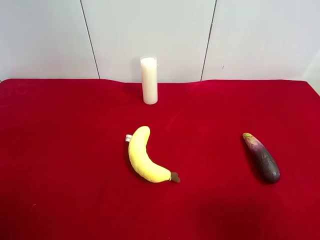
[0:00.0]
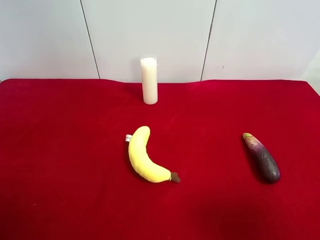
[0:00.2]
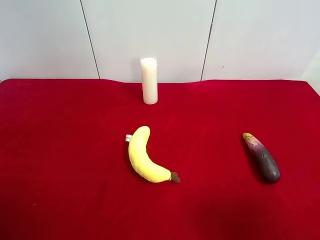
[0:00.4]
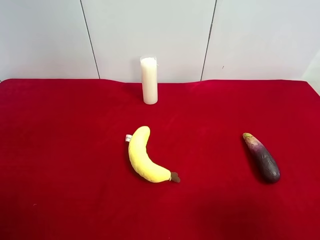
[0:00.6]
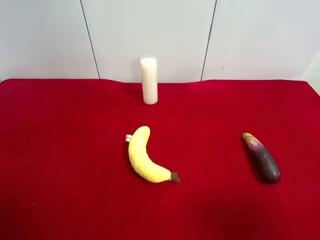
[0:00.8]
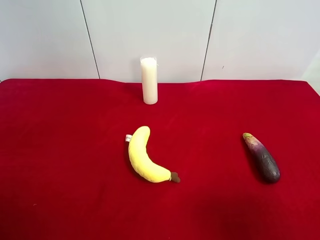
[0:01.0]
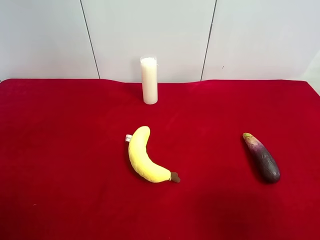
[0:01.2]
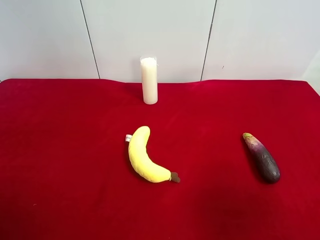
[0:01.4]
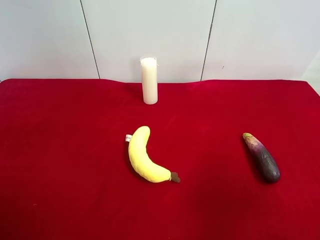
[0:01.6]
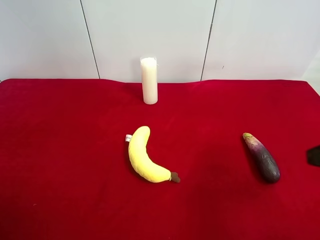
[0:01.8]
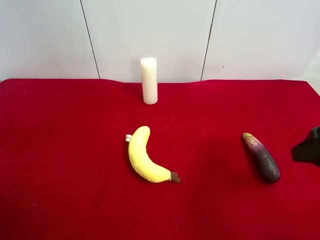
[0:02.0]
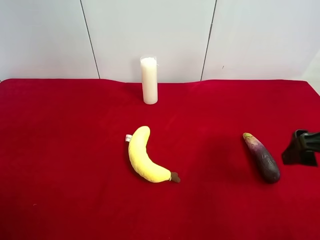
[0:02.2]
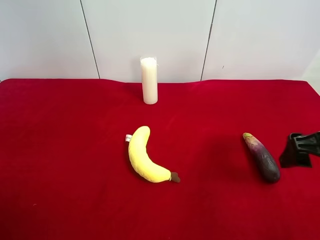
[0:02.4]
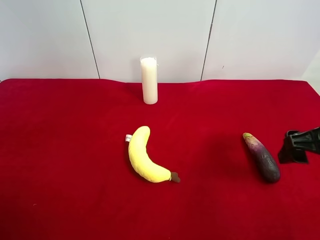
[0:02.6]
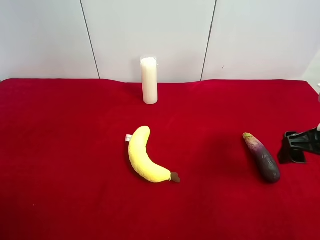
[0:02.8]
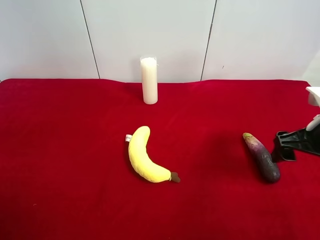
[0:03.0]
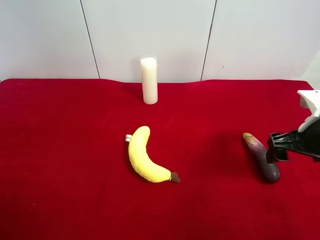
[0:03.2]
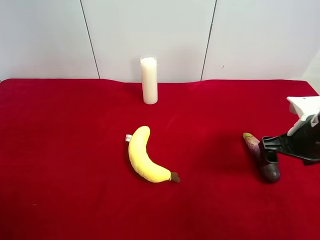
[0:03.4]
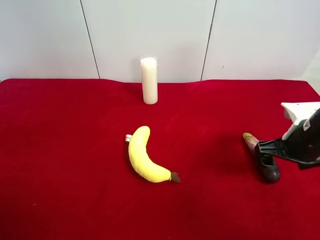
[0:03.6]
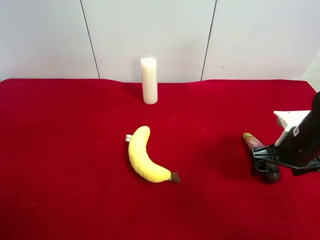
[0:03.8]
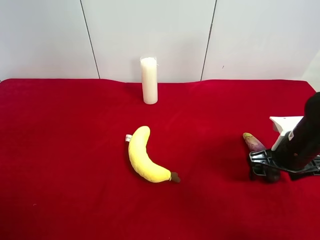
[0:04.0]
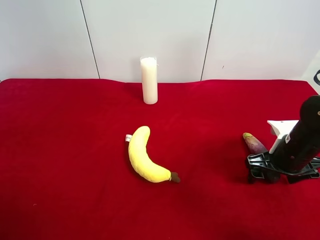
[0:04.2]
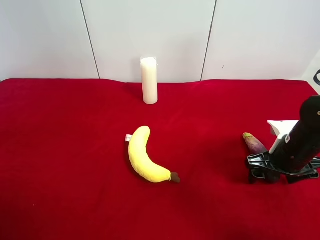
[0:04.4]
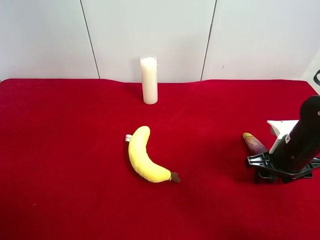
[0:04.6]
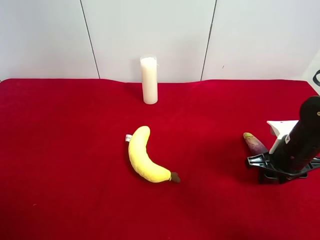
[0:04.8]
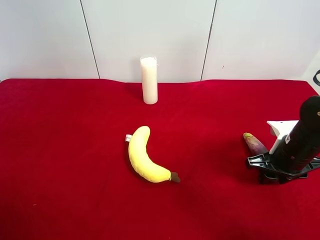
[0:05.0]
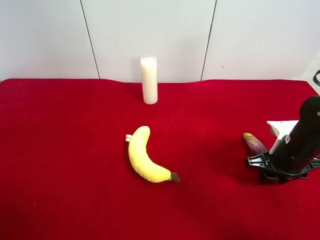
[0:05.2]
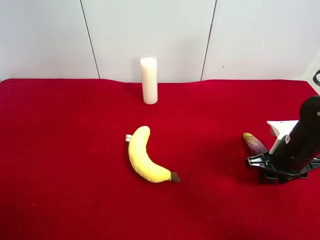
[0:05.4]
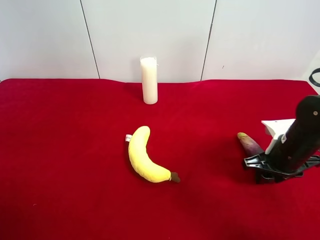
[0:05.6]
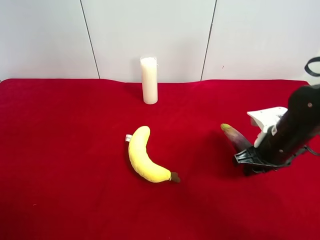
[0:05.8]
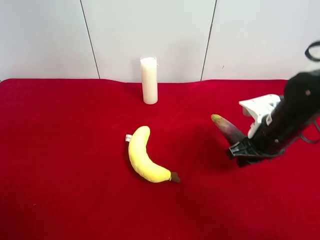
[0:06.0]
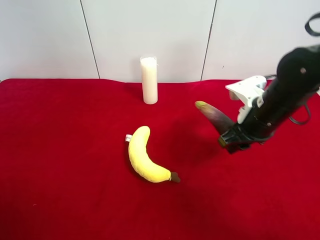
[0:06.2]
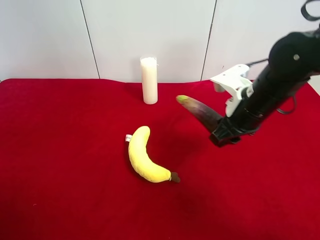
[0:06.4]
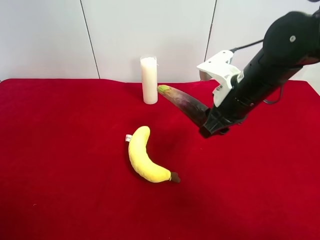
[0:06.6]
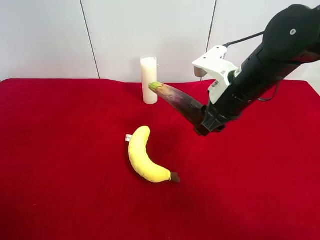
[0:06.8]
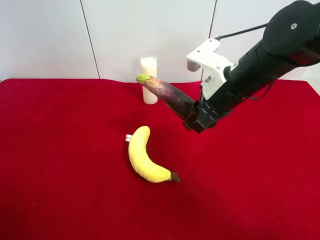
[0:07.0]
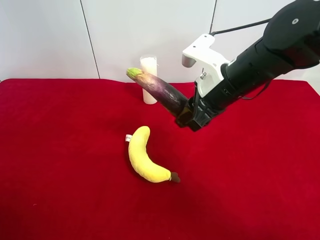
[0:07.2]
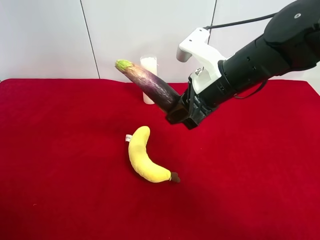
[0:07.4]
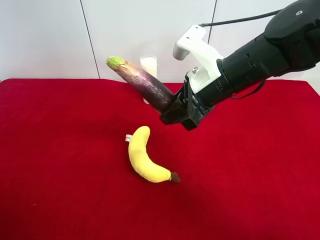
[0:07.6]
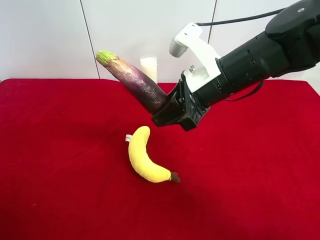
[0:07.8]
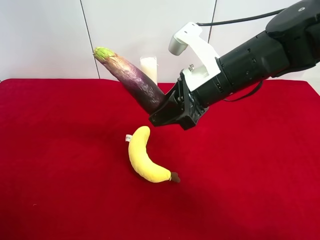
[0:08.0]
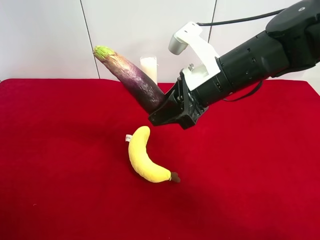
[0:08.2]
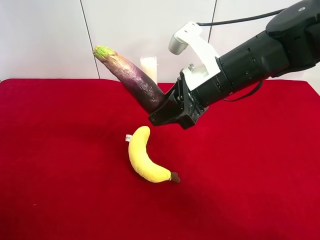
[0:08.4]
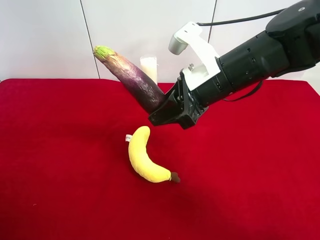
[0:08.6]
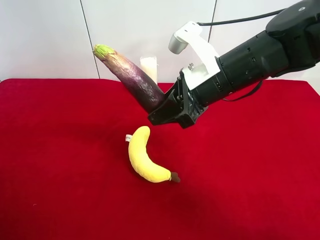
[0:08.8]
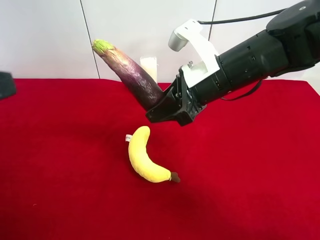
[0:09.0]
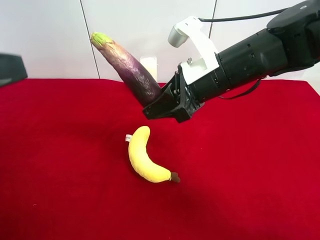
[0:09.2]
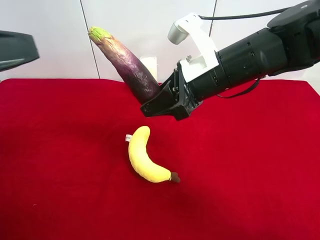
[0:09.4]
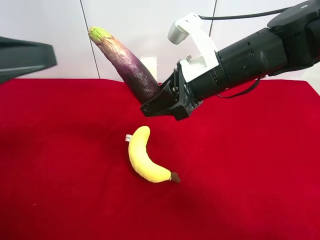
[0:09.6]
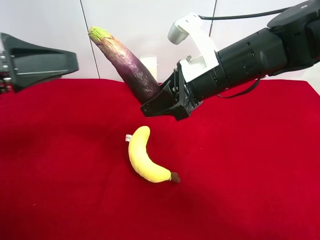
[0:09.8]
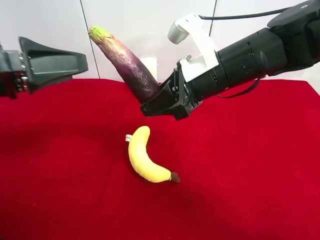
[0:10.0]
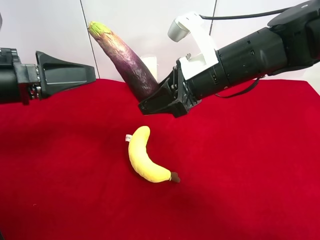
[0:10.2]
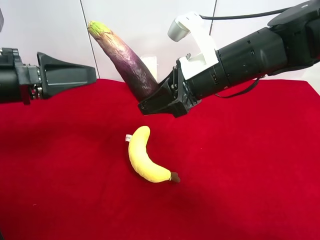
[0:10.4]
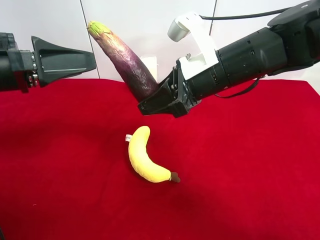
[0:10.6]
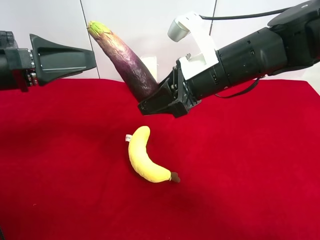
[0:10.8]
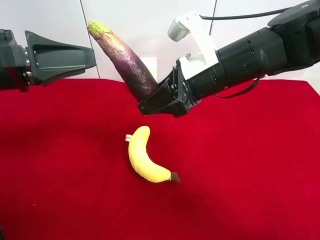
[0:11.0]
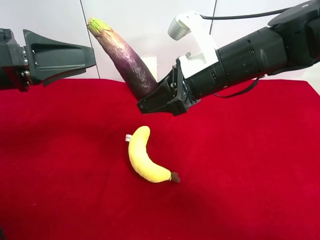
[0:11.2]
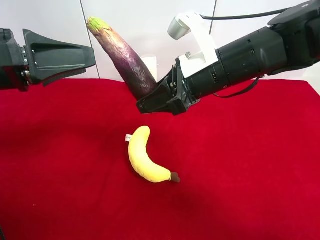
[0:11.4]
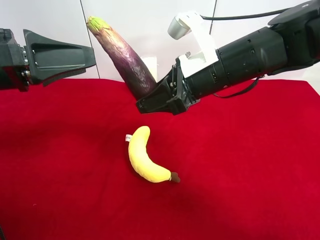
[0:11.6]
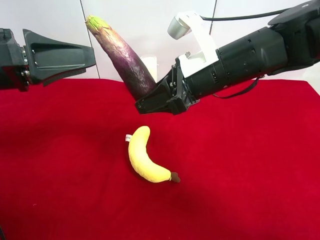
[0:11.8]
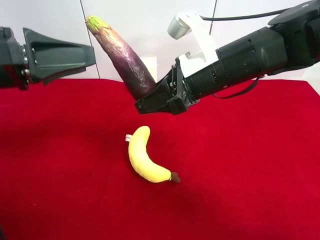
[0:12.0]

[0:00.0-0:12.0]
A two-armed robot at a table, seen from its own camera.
Task of the whole recording: use the right gripper to pick up the item and transfer it from the right gripper to the left gripper.
Step, 0:00.0 to 0:04.8: Use the right gripper to grab the eggplant on the right side of the table.
0:01.6 to 0:03.0: The right gripper heads forward and downward, covering some 15 cm.
0:03.0 to 0:04.4: The right gripper moves downward, roughly 10 cm.
0:04.4 to 0:06.0: The right gripper moves to the left, some 5 cm, and closes its fingers.
0:06.0 to 0:07.6: The right gripper shifts roughly 15 cm to the left and upward.
0:07.6 to 0:09.0: The left gripper is displaced forward by about 10 cm.
0:09.0 to 0:10.4: The left gripper is displaced forward and downward by roughly 15 cm.
0:10.4 to 0:12.0: There are only small adjustments of the grippers.

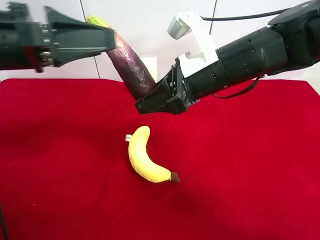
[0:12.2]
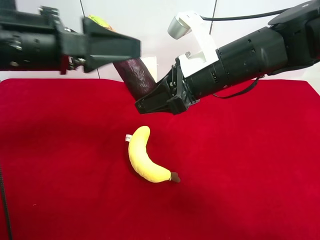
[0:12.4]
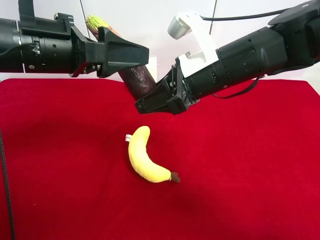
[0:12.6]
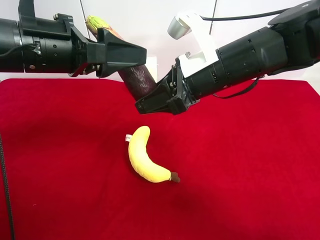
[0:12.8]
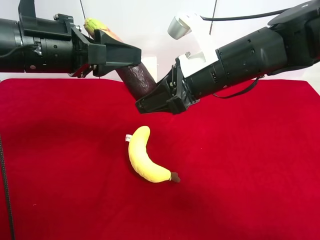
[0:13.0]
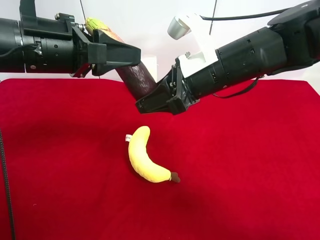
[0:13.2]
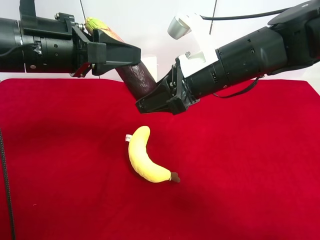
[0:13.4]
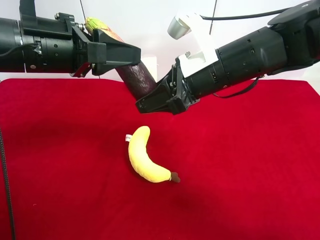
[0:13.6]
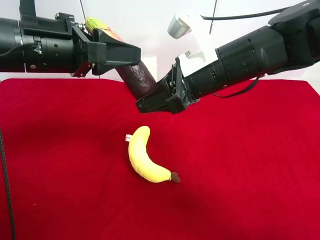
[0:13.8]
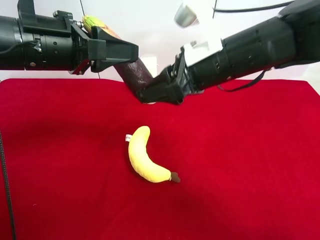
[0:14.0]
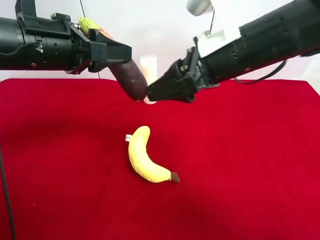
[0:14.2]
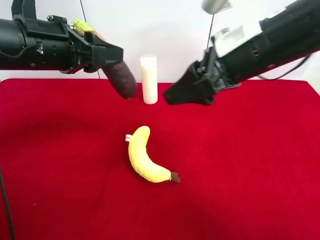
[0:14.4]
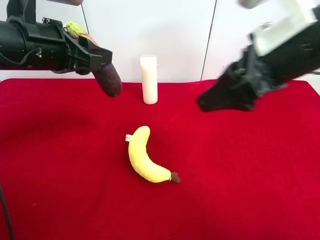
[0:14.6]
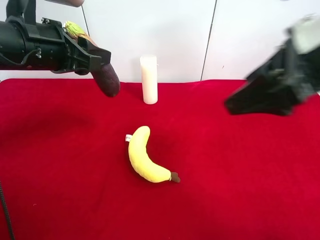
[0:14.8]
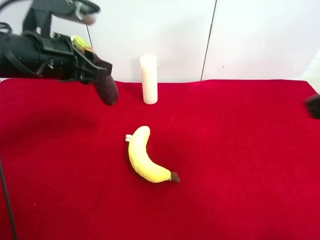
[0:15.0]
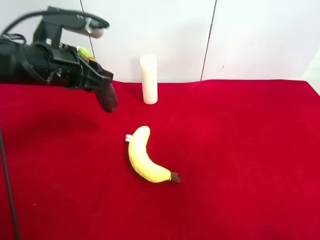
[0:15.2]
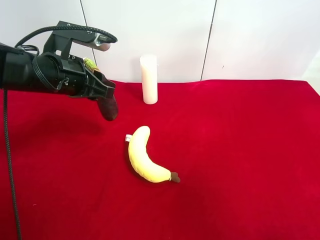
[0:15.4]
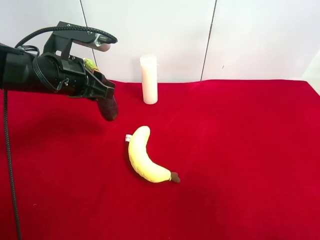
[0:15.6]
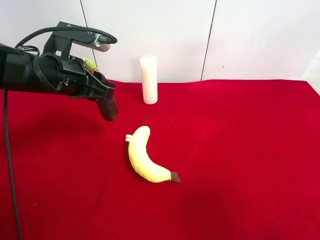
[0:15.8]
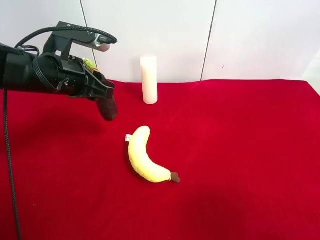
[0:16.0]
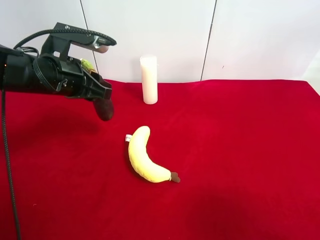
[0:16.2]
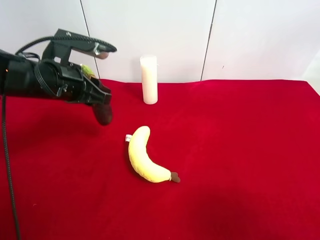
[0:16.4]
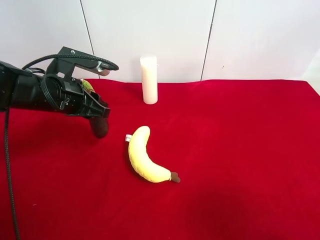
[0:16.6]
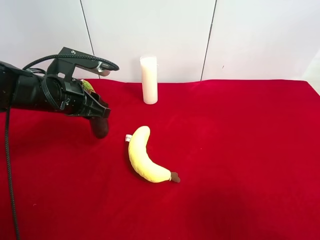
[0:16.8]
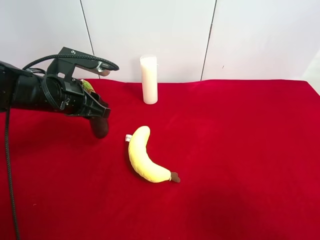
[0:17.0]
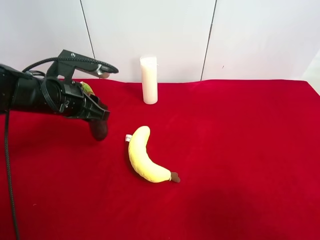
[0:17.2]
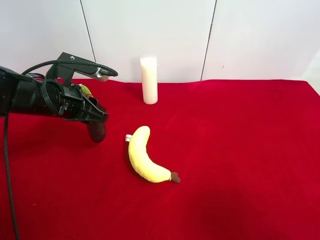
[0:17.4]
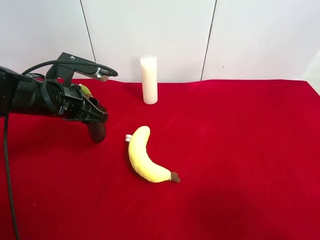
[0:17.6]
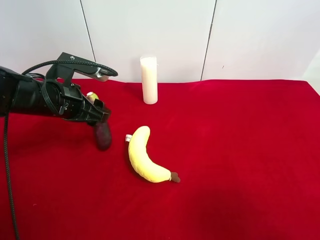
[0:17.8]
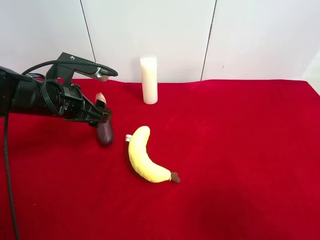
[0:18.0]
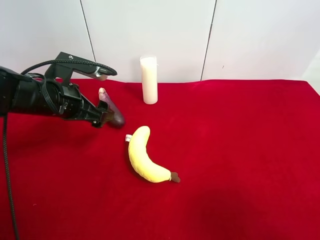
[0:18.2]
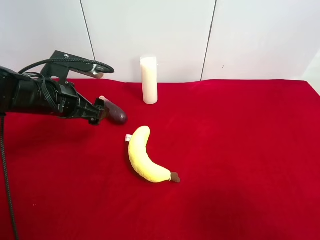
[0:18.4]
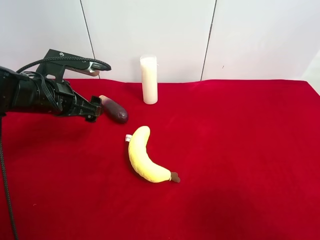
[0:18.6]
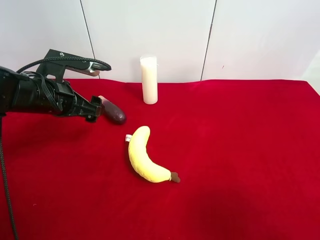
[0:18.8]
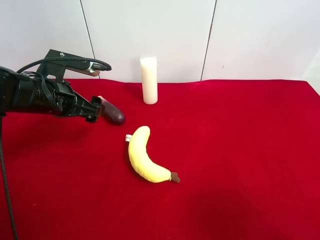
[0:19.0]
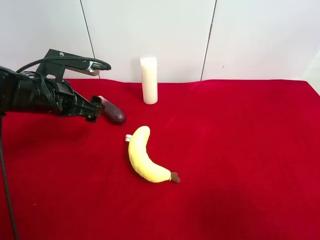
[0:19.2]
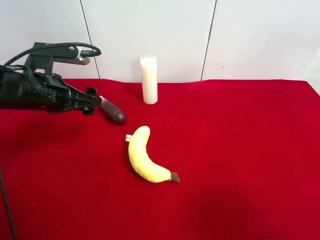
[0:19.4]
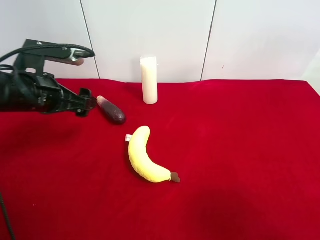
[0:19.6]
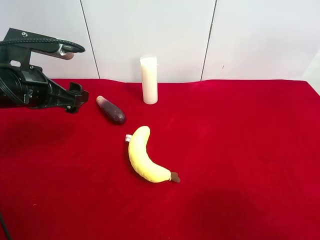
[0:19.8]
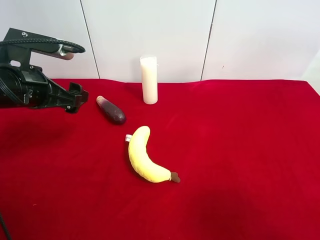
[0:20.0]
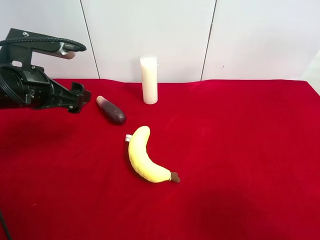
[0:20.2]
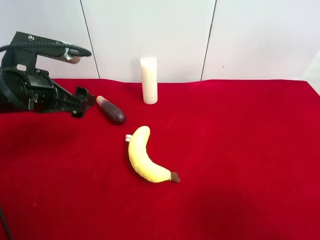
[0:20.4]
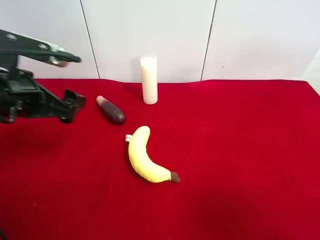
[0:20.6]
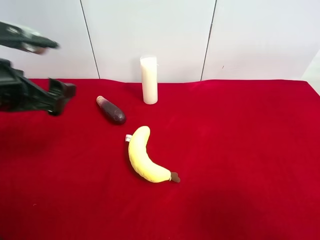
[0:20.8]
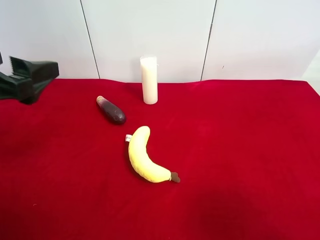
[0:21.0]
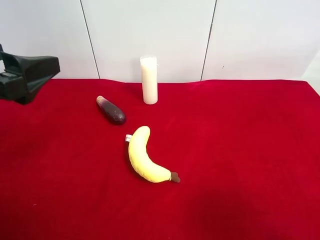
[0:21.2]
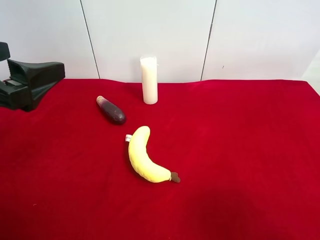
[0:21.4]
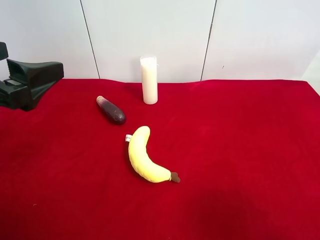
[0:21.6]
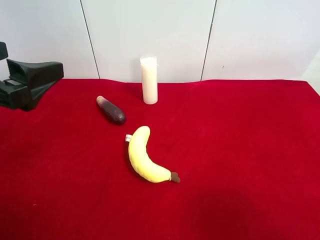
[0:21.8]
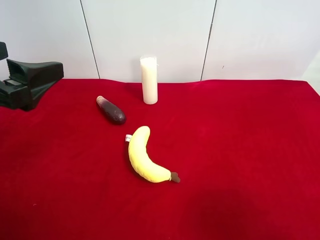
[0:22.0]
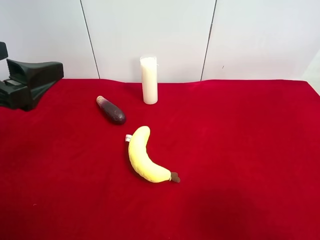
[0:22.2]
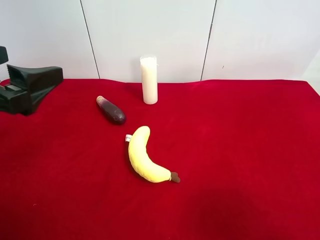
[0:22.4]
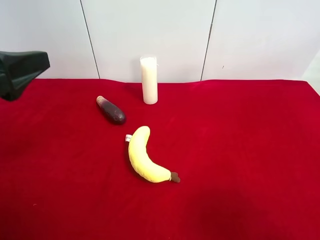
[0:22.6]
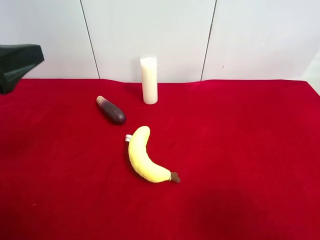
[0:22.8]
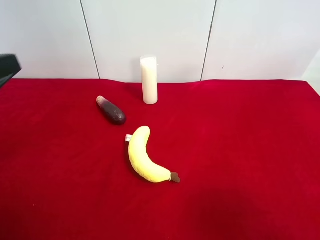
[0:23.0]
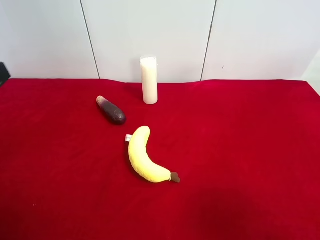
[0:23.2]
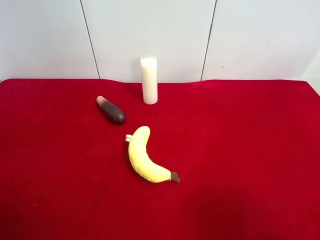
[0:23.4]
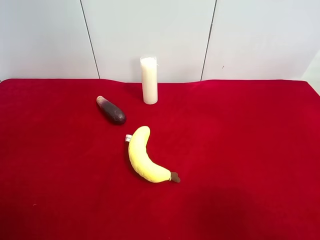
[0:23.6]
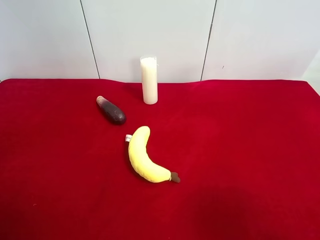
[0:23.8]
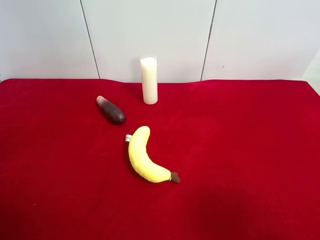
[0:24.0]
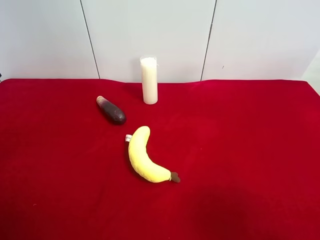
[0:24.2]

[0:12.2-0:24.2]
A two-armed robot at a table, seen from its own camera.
Task of the whole recording: use the right gripper to pick up the item and transfer it from the right gripper to the left gripper.
Step, 0:14.2 to 0:18.0: The left gripper places eggplant on the left side of the table.
0:12.2 to 0:13.8: The left gripper closes its fingers.
0:13.8 to 0:15.2: The left gripper travels downward by roughly 5 cm, while the right gripper shifts approximately 30 cm backward, to the right and upward, and opens up.
0:16.6 to 0:18.2: The left gripper opens up.
0:18.2 to 0:19.8: The left gripper changes place by some 5 cm.
0:19.8 to 0:21.2: The left gripper is displaced backward and upward by about 10 cm.
0:21.2 to 0:22.6: There are only small adjustments of the grippers.
0:22.6 to 0:24.2: The left gripper ends up roughly 5 cm from where it was.
